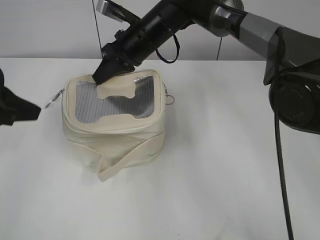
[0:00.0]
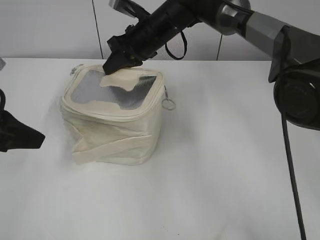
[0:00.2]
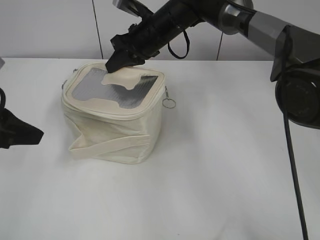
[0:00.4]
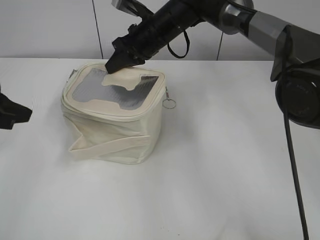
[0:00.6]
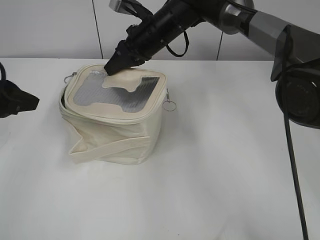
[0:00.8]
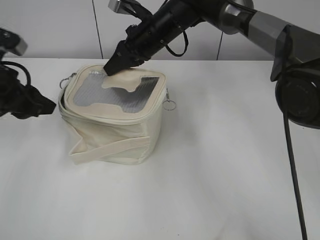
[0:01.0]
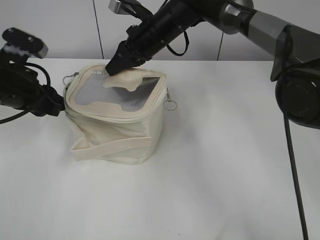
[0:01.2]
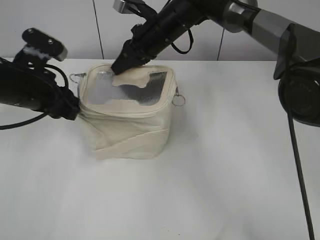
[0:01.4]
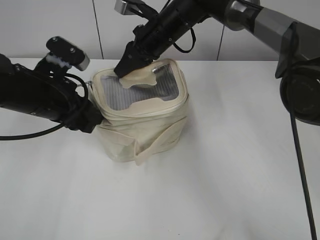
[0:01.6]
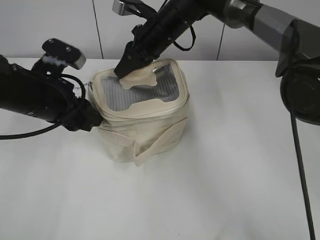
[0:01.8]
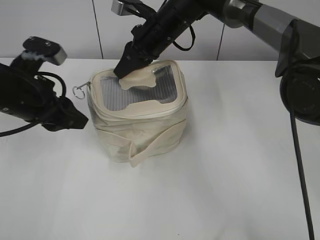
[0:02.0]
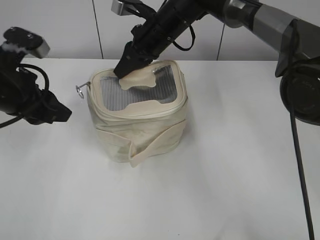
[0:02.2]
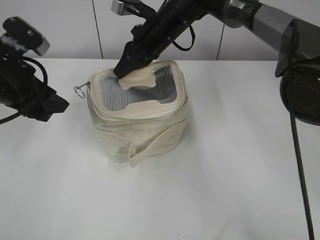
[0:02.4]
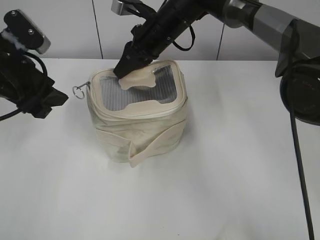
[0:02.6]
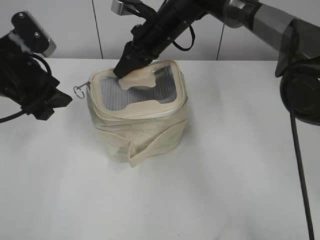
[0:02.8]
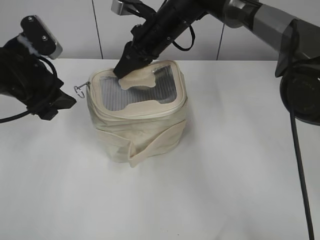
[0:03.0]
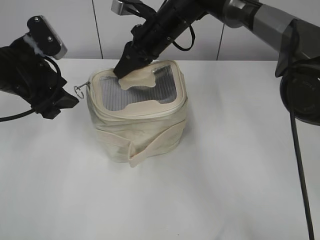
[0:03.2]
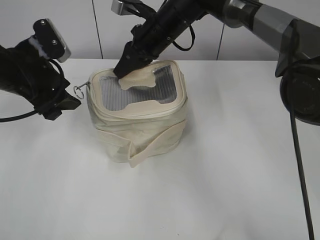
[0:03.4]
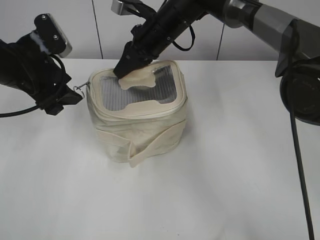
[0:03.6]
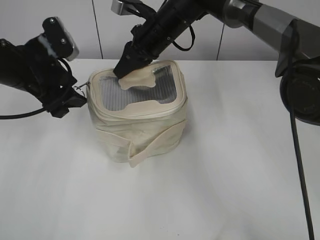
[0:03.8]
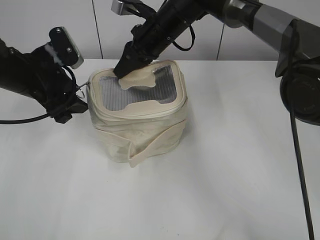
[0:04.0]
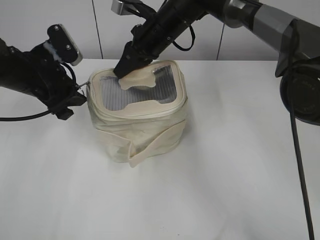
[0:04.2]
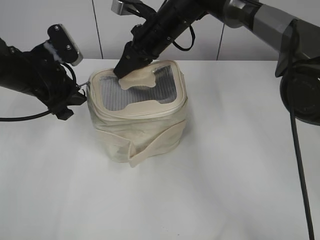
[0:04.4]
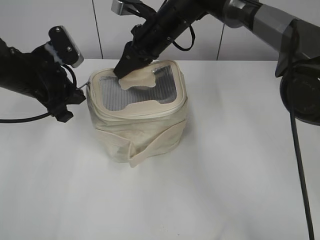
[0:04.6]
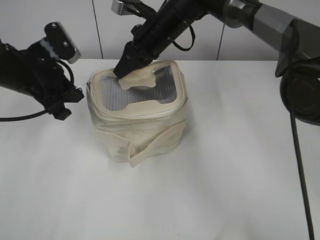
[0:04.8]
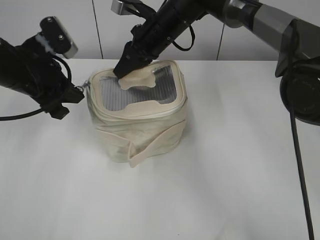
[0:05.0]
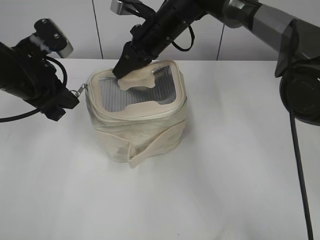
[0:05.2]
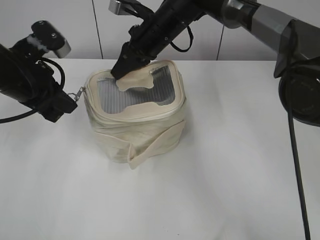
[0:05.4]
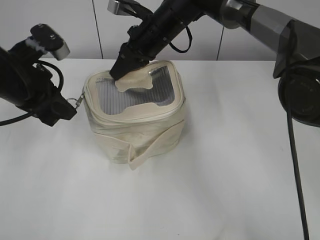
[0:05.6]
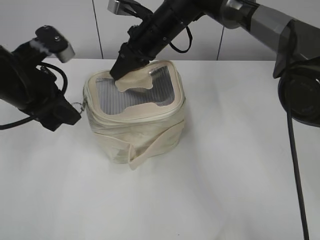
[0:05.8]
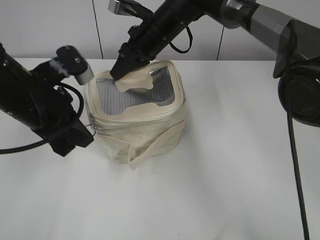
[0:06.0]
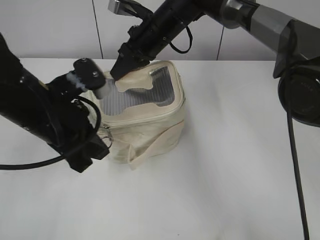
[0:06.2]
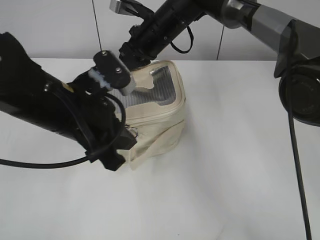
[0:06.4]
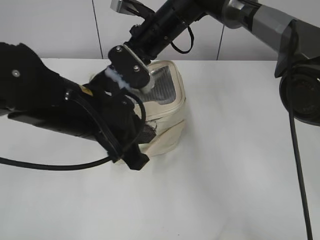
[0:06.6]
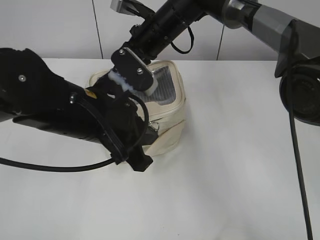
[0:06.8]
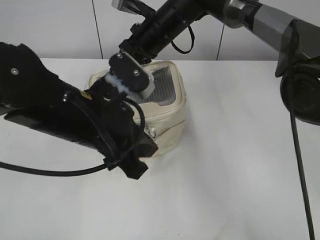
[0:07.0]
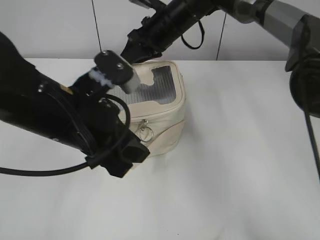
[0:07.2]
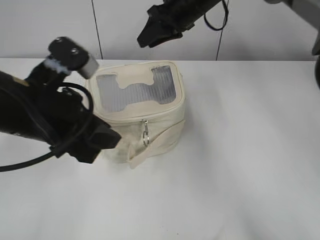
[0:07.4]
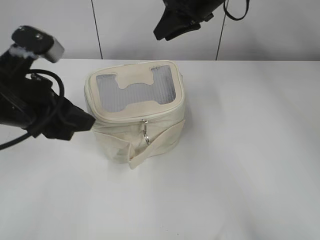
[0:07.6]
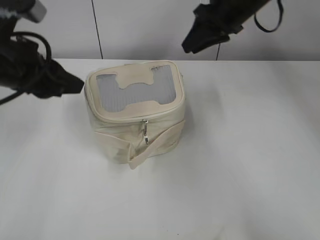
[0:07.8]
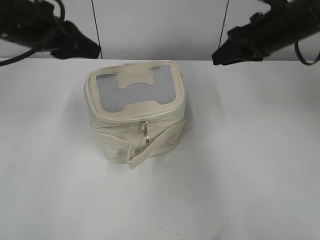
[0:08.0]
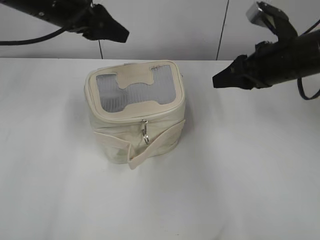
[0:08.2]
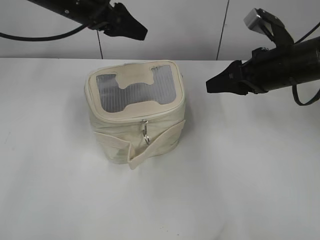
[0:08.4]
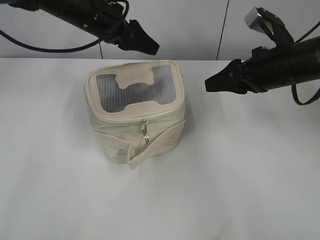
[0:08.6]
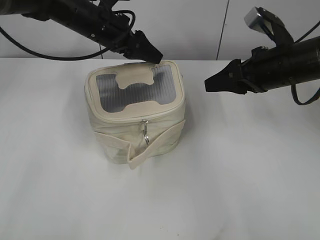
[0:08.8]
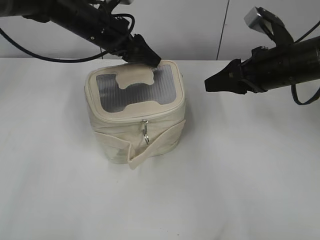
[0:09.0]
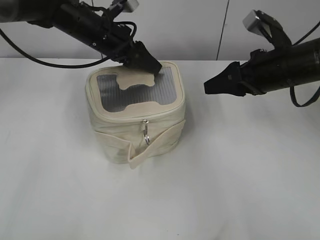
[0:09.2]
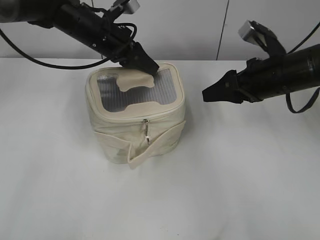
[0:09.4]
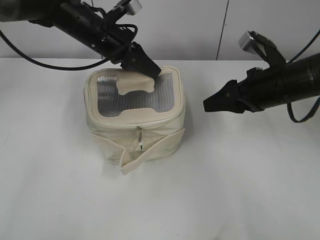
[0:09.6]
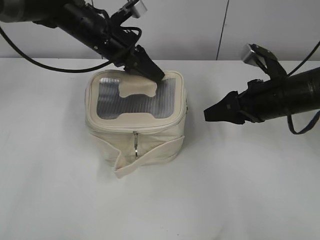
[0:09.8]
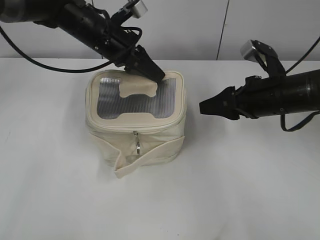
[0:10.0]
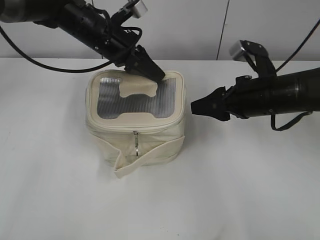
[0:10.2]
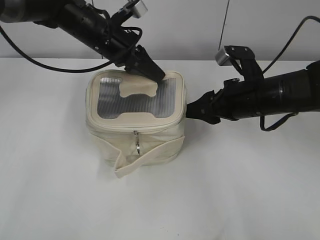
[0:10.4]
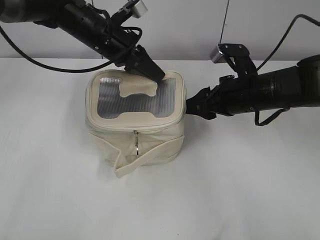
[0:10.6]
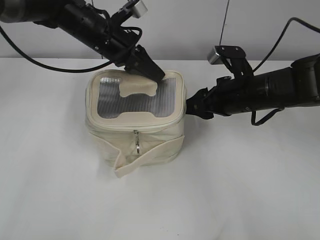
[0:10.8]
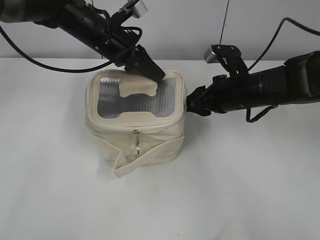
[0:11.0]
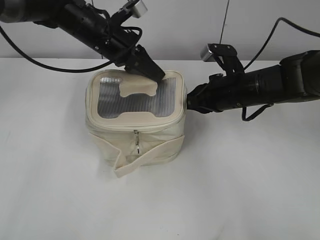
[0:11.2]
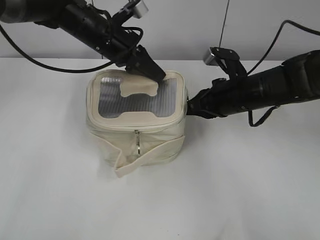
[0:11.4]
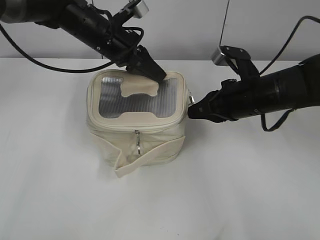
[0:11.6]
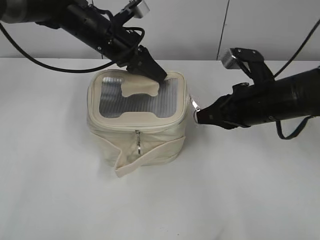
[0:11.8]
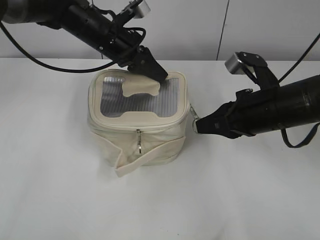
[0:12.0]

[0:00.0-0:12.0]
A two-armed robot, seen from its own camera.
Step, 0:00.0 to 0:07.4: Pull the zipper with left gripper.
Step, 0:07.8 to 0:09.4: Grasp the bag with left gripper.
0:00.0 to 0:01.6: The left gripper shifts roughly 10 cm to the right, and opens.
0:01.6 to 0:03.0: The left gripper ends up some 5 cm from where it was.
0:03.0 to 0:04.4: The left gripper closes its fingers.
0:04.4 to 0:06.0: The left gripper is displaced backward by some 5 cm, and closes up.
0:06.0 to 0:07.6: The right gripper goes approximately 10 cm to the right and upward, and opens up. Meanwhile the left gripper goes to the right and returns, approximately 10 cm each way, and opens its fingers.
0:07.6 to 0:09.0: The right gripper is displaced backward, to the right and downward by roughly 20 cm, while the left gripper shifts approximately 20 cm forward, and opens up.
0:09.0 to 0:10.4: The left gripper closes up. The right gripper heads downward, covering about 5 cm.
0:10.4 to 0:12.0: The right gripper closes up.

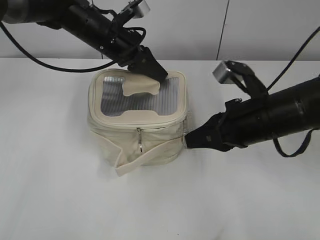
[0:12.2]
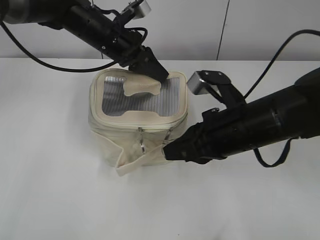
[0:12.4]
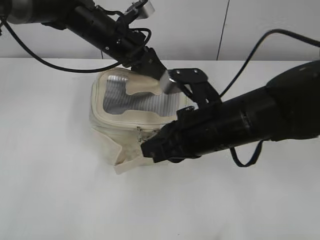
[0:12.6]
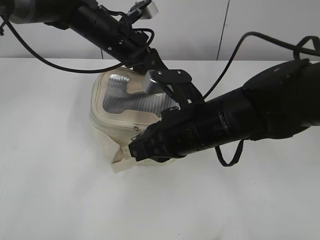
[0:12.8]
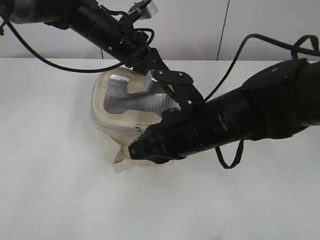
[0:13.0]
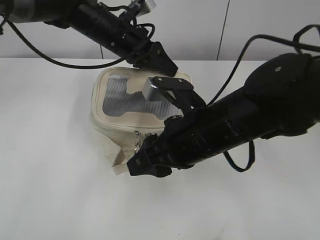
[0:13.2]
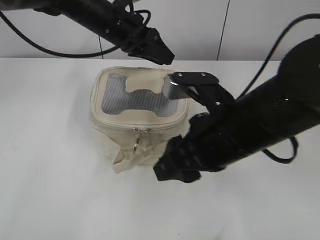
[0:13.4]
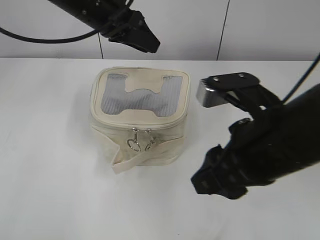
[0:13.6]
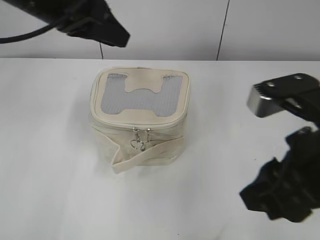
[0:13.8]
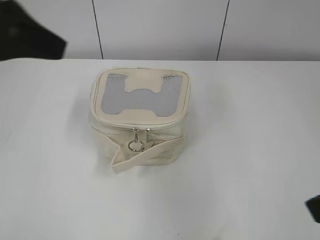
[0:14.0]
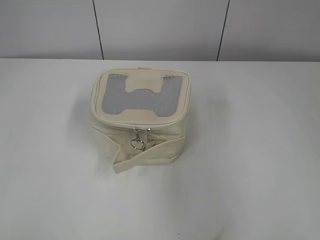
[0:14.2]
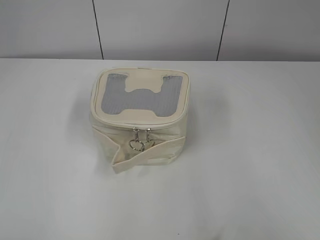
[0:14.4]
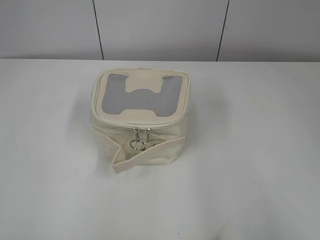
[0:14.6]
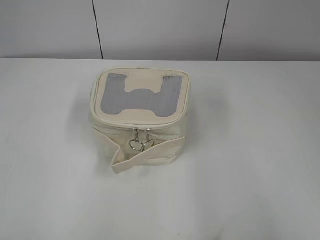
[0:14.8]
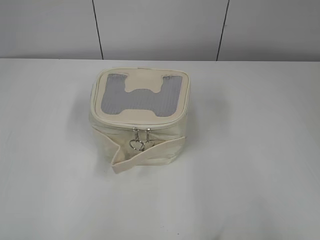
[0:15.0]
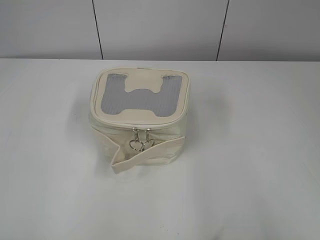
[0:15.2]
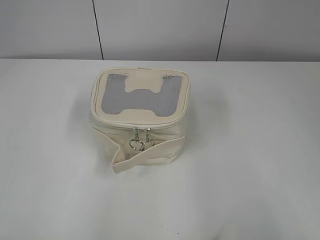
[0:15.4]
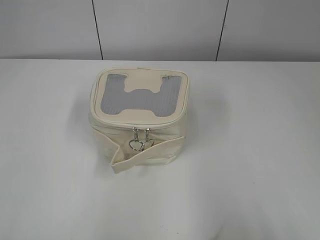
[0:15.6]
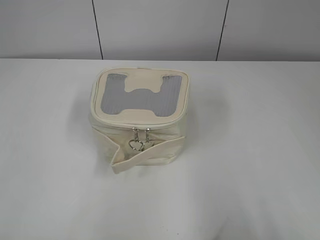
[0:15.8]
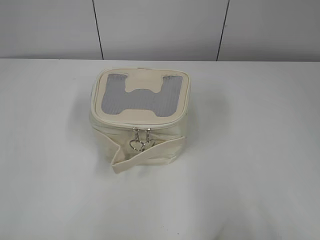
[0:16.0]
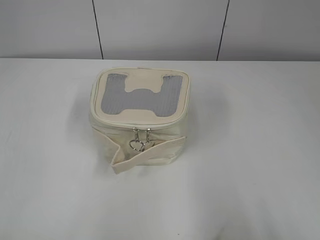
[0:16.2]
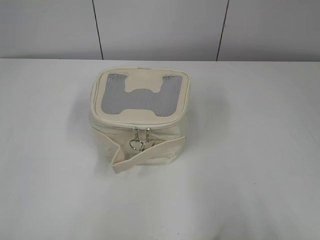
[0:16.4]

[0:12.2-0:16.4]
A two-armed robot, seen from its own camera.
0:12.2 to 0:13.6: The left gripper moves upward, approximately 5 cm, and opens. Meanwhile the right gripper moves backward, upward and to the left, about 10 cm, and opens.
0:13.6 to 0:15.0: The left gripper shifts some 50 cm backward and to the left. Meanwhile the right gripper moves to the right and backward, approximately 25 cm.

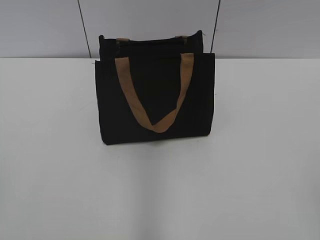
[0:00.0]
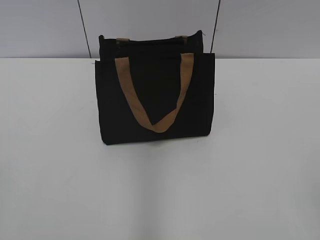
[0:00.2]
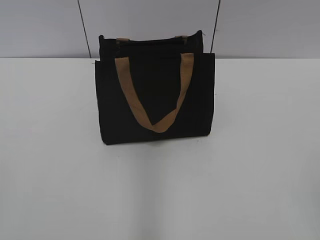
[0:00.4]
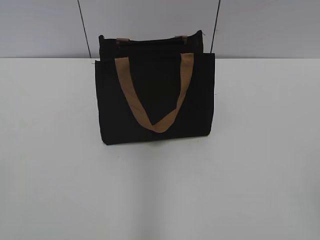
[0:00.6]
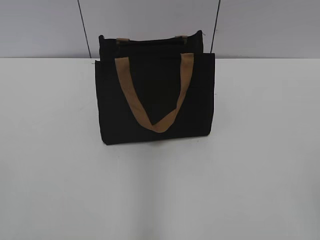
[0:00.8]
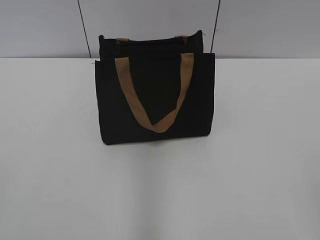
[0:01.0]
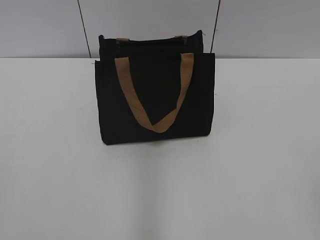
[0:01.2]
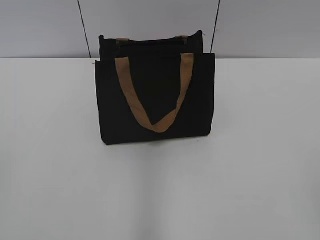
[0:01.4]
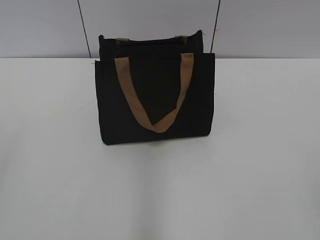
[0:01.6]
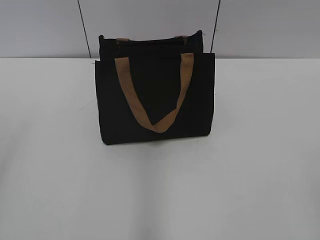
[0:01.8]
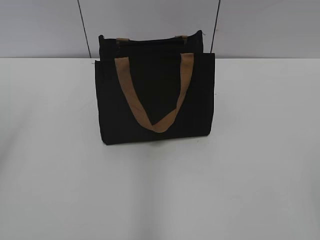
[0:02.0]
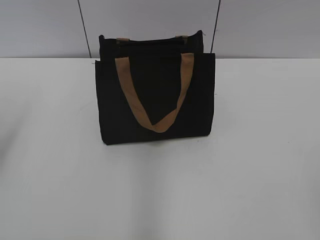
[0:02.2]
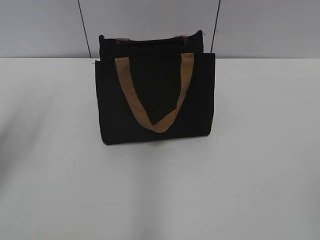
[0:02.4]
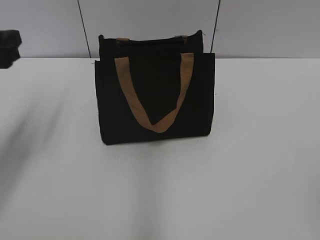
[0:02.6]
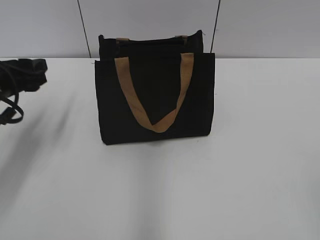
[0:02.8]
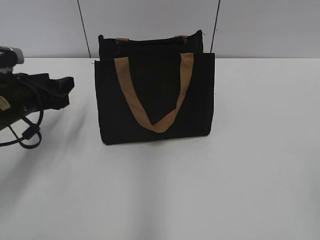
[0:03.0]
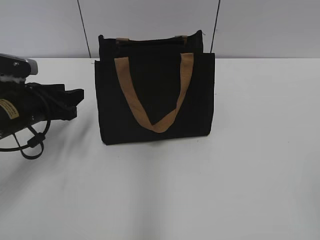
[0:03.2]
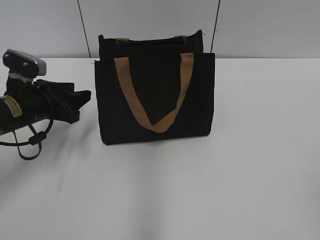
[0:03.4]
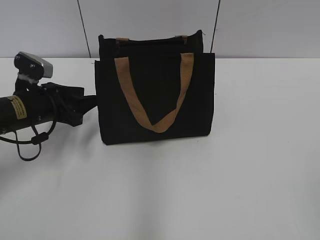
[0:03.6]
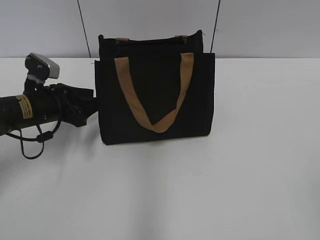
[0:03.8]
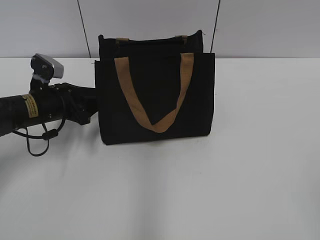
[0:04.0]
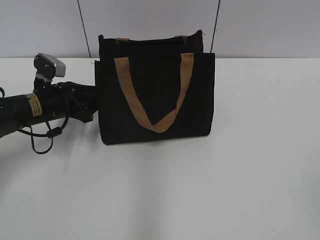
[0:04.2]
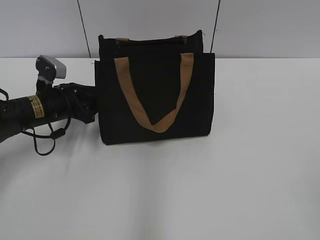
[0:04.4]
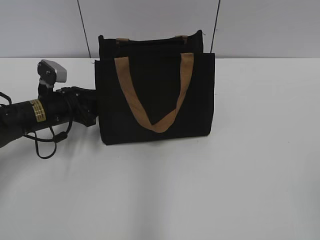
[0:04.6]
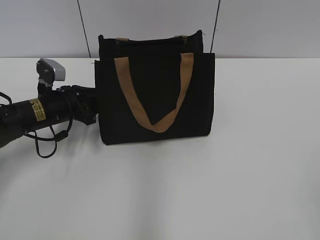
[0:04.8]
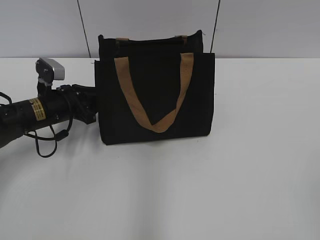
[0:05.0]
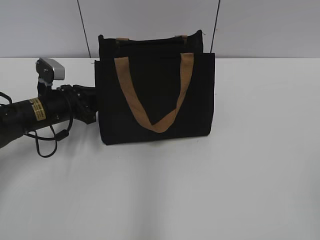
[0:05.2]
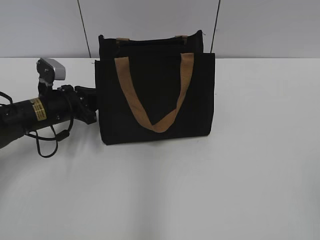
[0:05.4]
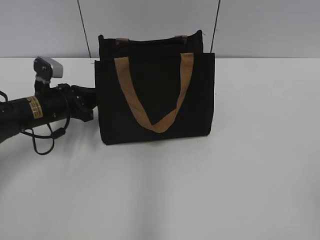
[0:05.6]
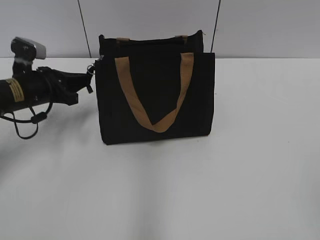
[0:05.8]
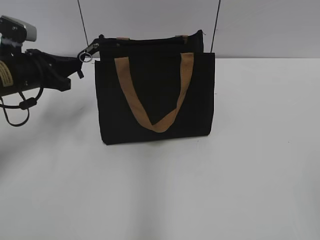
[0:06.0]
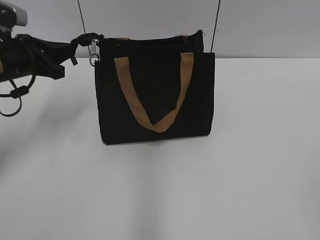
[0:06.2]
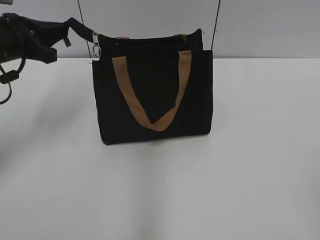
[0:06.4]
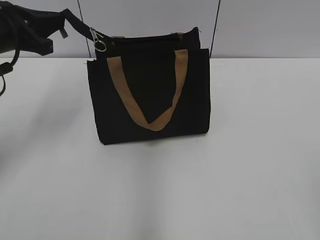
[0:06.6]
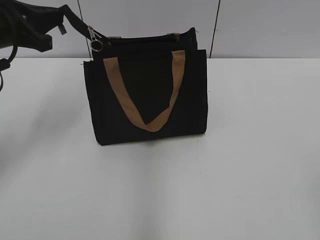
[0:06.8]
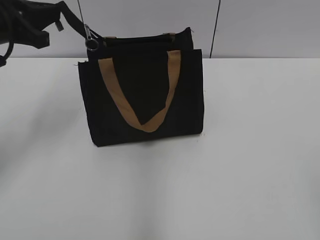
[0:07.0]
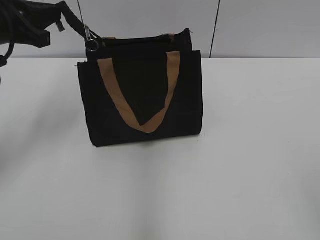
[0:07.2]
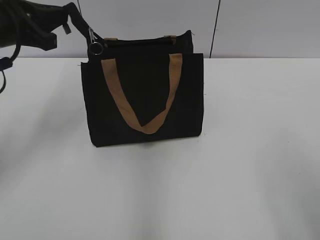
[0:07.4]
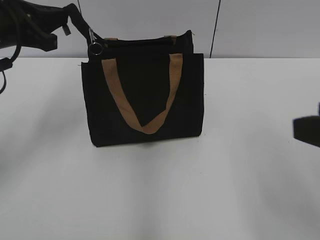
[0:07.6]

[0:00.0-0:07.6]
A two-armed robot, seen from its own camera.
0:01.6 to 0:03.0: The left gripper goes roughly 30 cm forward and downward.
0:03.0 to 0:04.6: The left gripper heads downward and forward, covering roughly 10 cm.
0:04.6 to 0:06.0: The left gripper heads upward, covering roughly 5 cm, and closes its fingers.
0:06.0 to 0:07.6: The left gripper shifts roughly 10 cm upward; the right gripper heads forward, covering some 10 cm.
